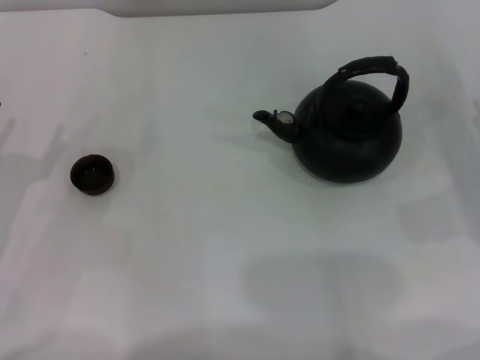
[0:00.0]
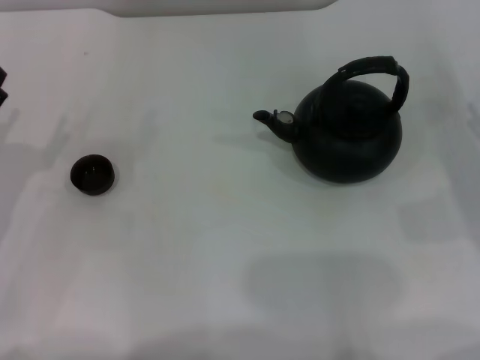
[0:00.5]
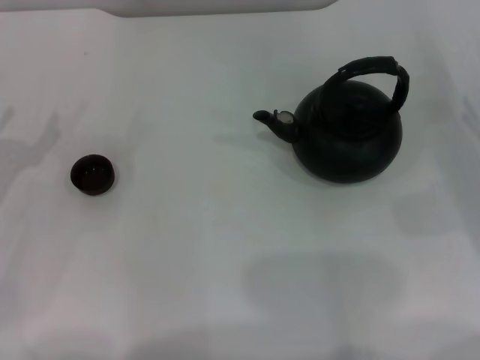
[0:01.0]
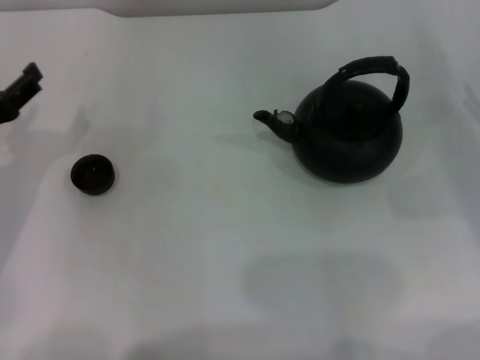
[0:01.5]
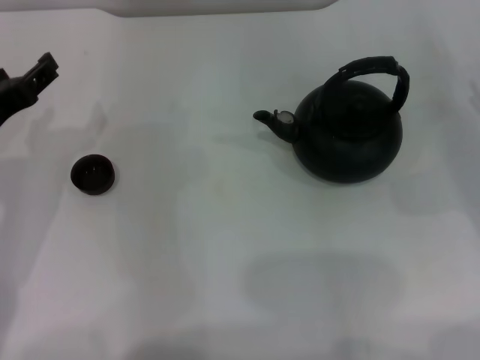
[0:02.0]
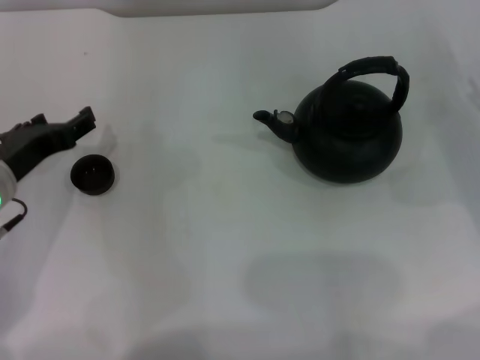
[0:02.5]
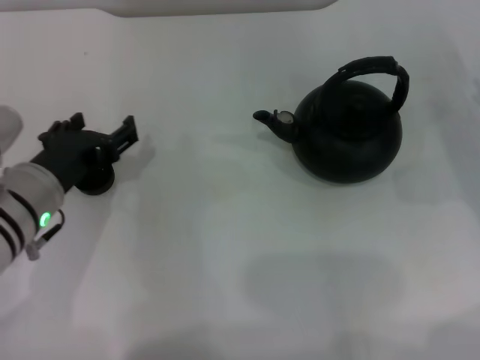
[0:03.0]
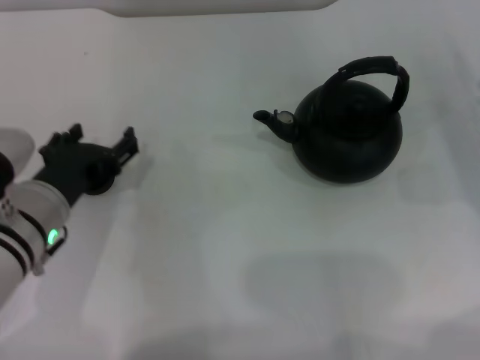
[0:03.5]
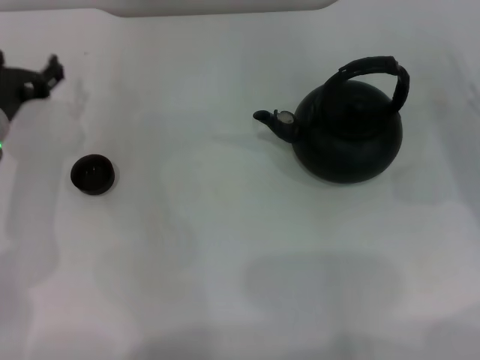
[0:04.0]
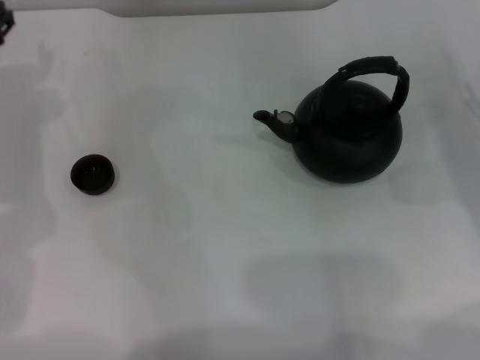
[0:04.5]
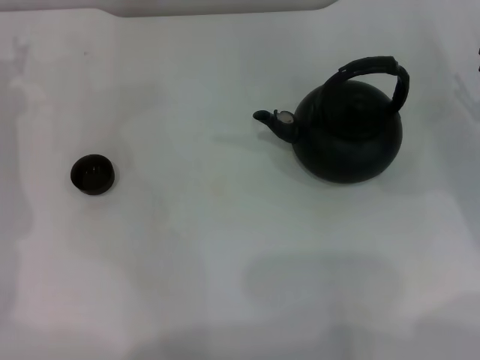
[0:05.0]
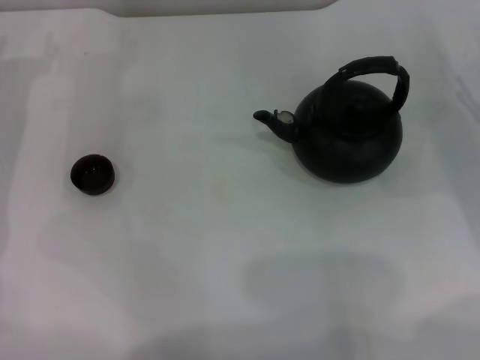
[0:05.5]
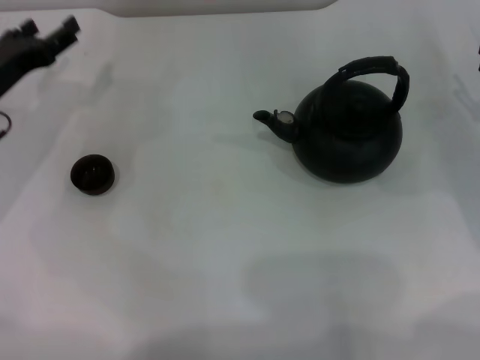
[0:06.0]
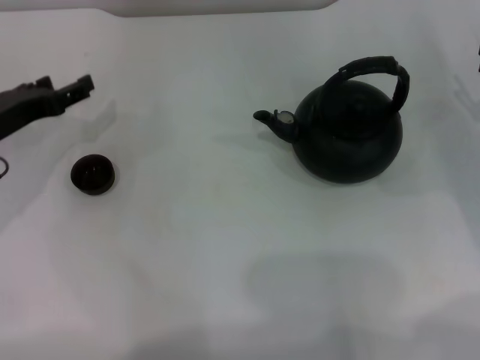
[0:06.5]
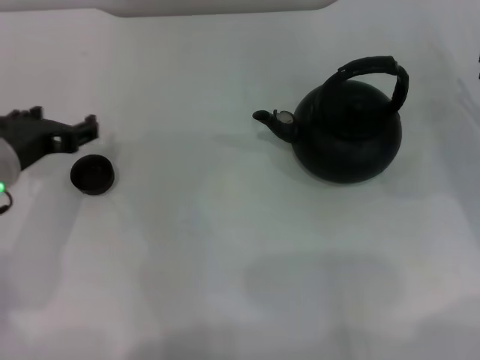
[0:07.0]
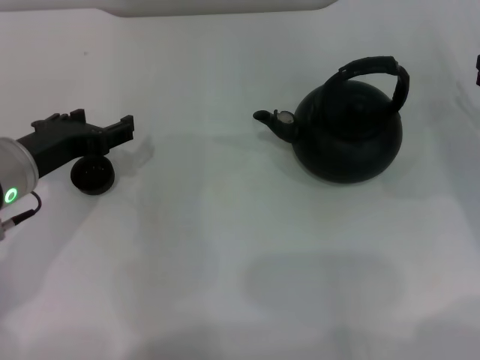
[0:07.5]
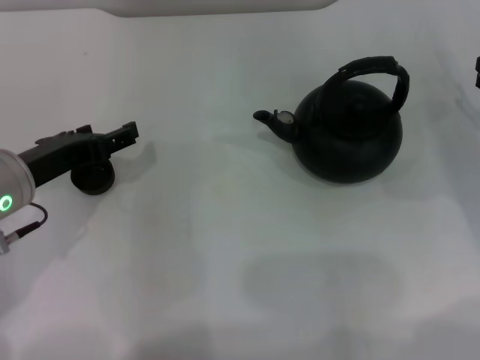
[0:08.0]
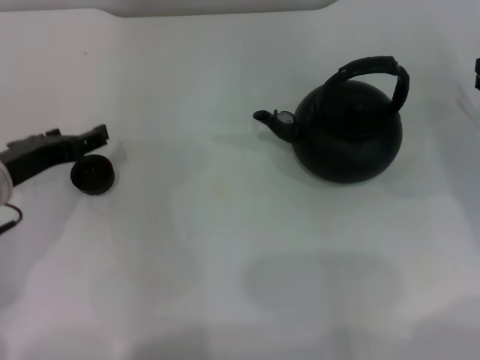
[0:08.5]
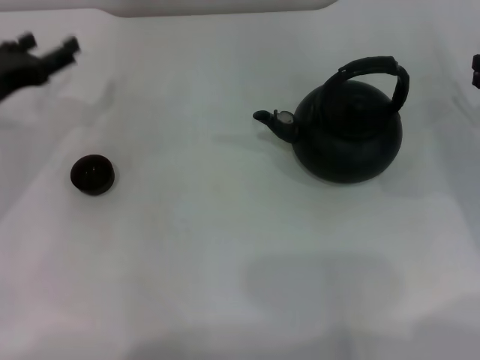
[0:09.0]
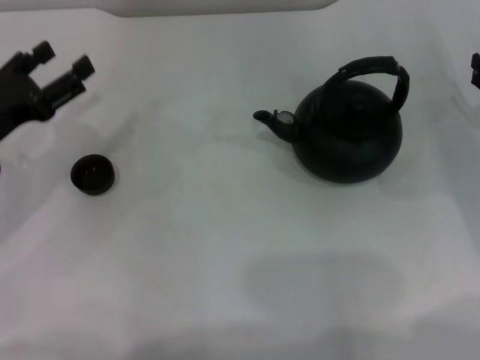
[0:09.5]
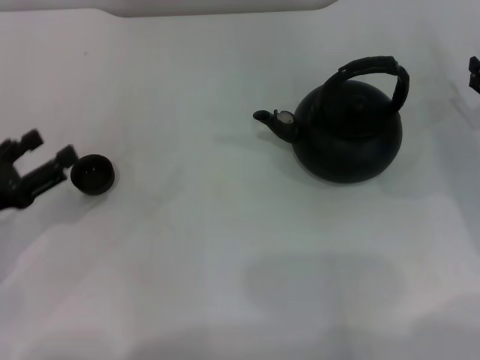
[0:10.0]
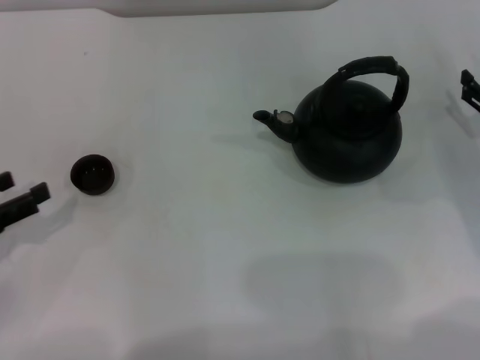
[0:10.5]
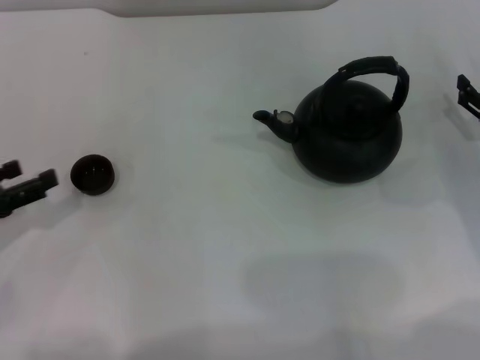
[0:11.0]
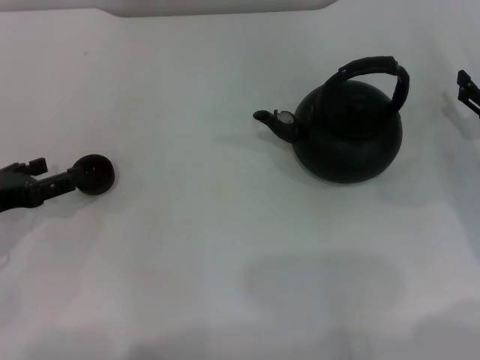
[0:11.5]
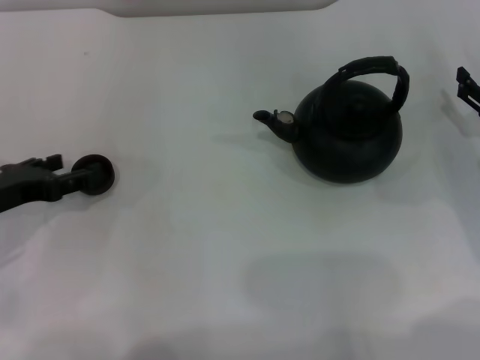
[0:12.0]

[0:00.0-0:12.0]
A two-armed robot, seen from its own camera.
Task of the whole recording: Grasp the handle of the teapot with one hand and pour tea into the teacup.
0:00.0 to 0:02.0: The left gripper travels upward and to the right by approximately 10 cm.
0:02.0 to 0:04.0: The left gripper is displaced forward by approximately 5 cm.
0:06.0 to 0:08.0: The left gripper is displaced backward and to the right by approximately 10 cm.
0:08.0 to 0:10.0: The left gripper heads to the left, covering about 10 cm.

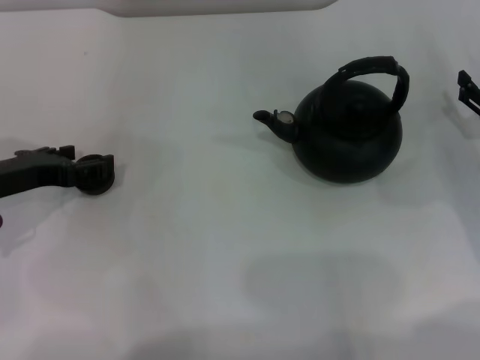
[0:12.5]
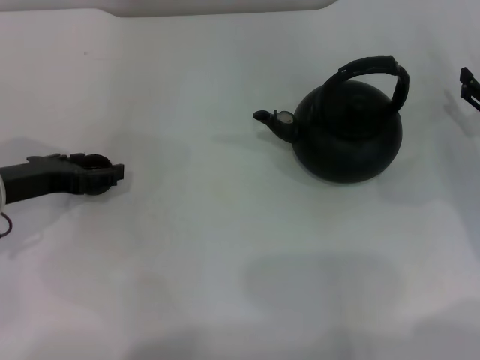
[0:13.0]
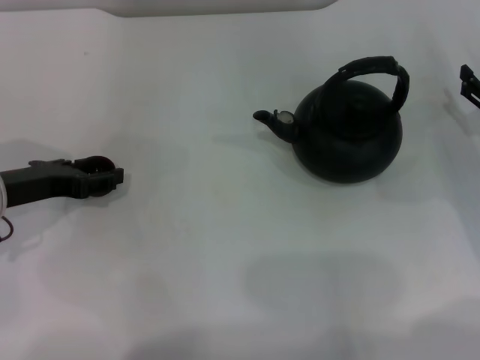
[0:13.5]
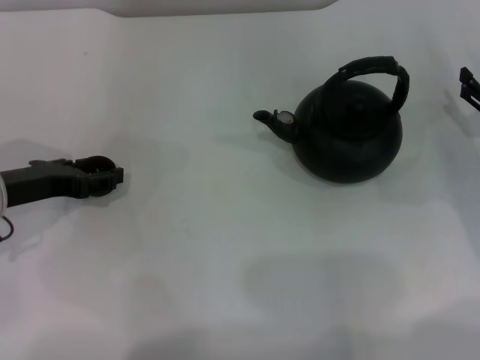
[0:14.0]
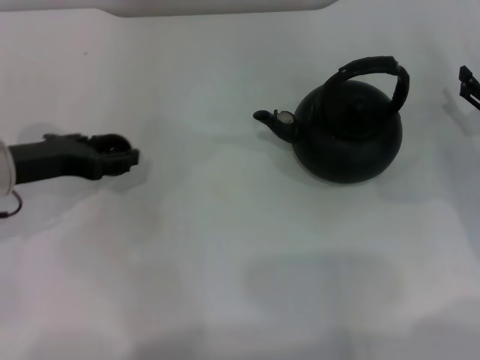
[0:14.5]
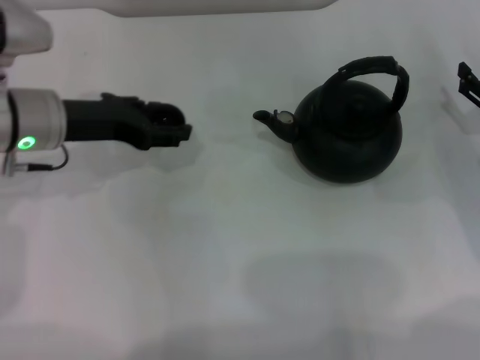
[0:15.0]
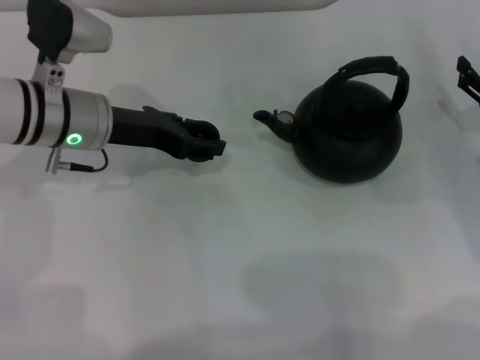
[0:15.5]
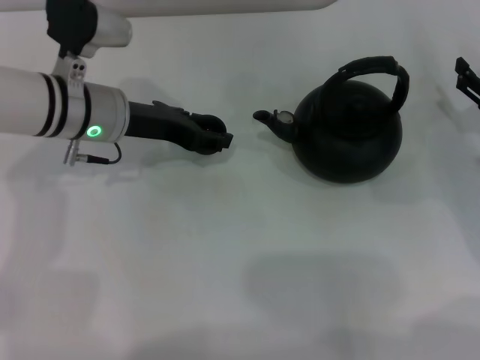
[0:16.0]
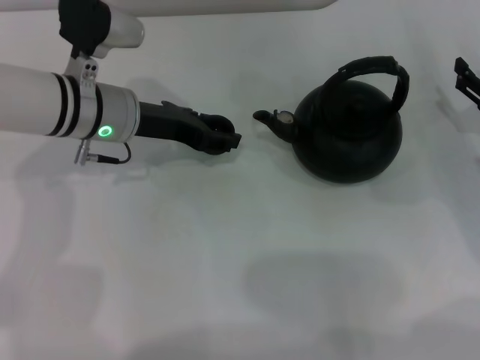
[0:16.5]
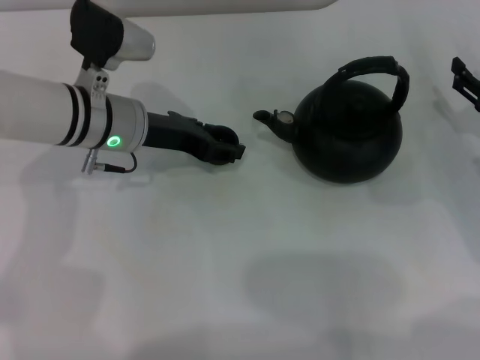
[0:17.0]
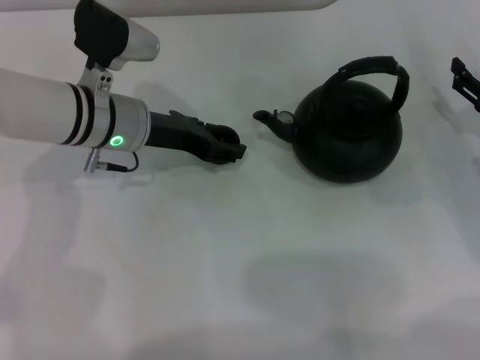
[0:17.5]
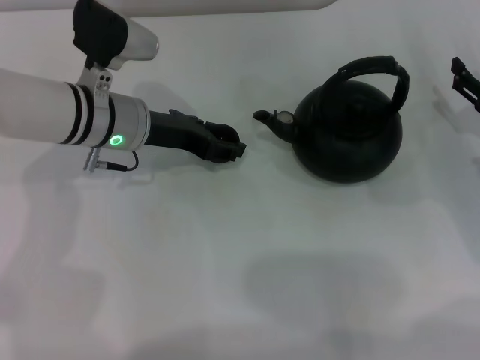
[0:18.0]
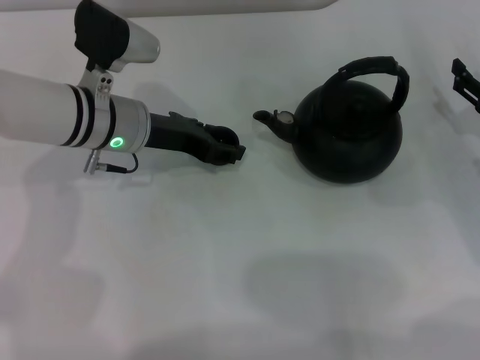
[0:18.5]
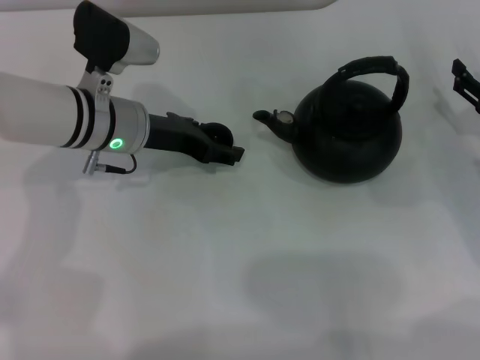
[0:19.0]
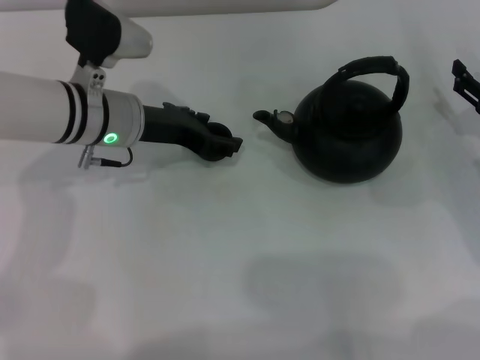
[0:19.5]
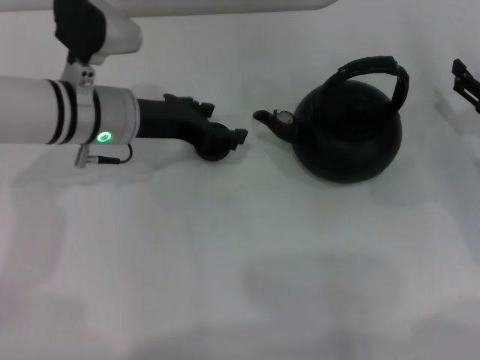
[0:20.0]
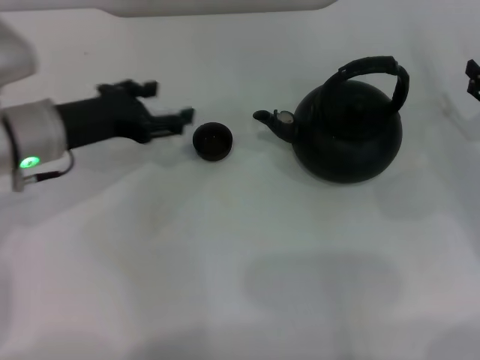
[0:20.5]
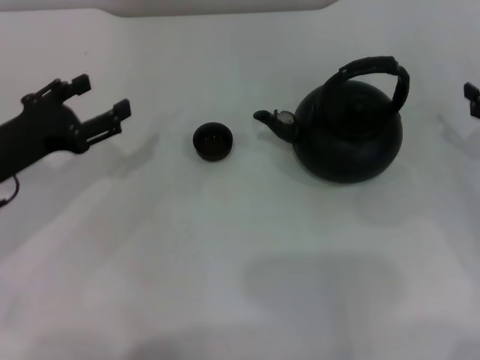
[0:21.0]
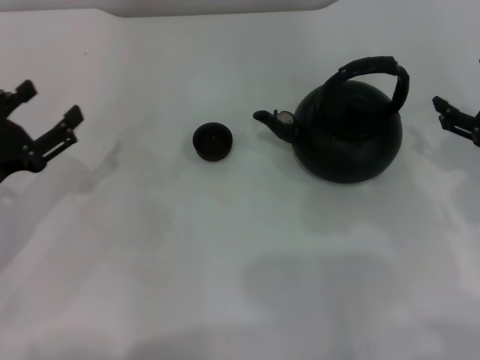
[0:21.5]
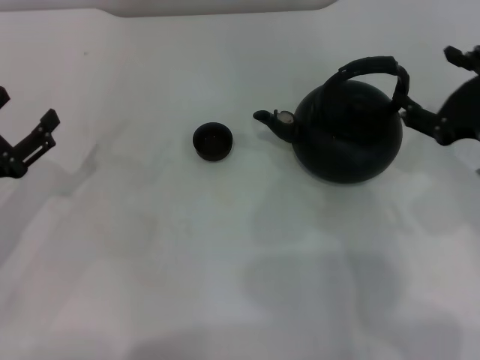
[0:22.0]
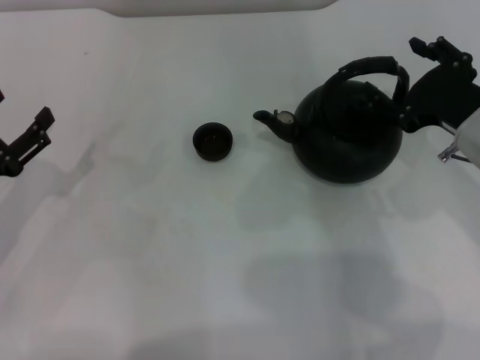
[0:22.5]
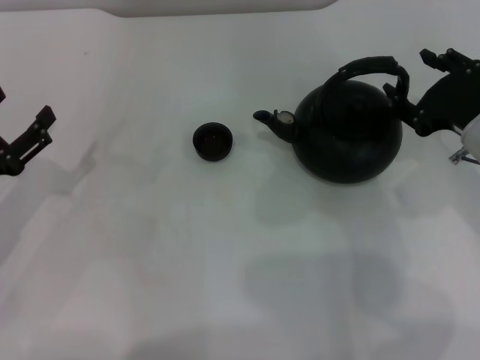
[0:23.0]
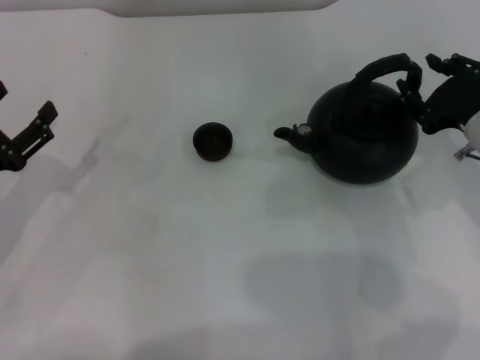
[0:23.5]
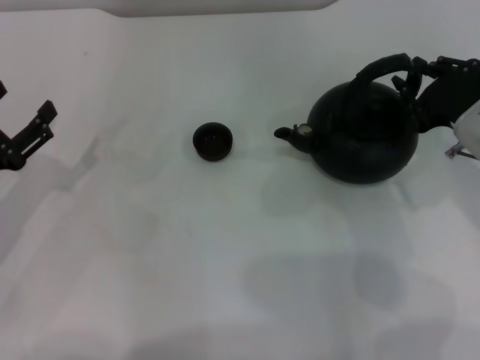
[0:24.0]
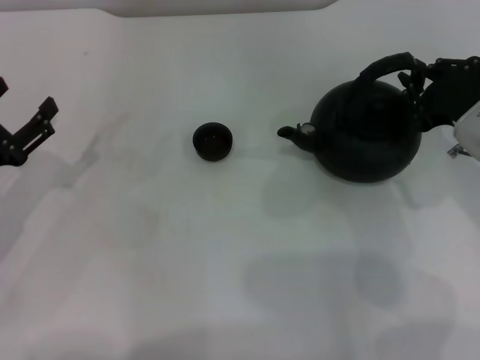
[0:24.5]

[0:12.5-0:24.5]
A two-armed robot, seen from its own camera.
Task of the whole recording: Grasp the handle of the teapot with one hand and pour tea into the teacup.
Step, 0:12.5 to 0:14.5: Pick up the teacup with the left gripper.
Step, 0:15.0 to 0:20.0: Place the teacup in the center of view with the left gripper.
0:12.5 to 0:14.5: The left gripper closes its fingers.
0:14.5 to 0:16.5: The left gripper goes about 15 cm to the right and forward.
0:16.5 to 0:18.5: The grippers make only small movements.
0:18.5 to 0:20.5: The left gripper is displaced to the left by about 5 cm, and opens.
0:20.5 to 0:22.5: The right gripper heads to the left and upward, covering about 15 cm; the left gripper travels to the left, backward and downward by about 15 cm.
0:22.5 to 0:24.5: The right gripper closes.

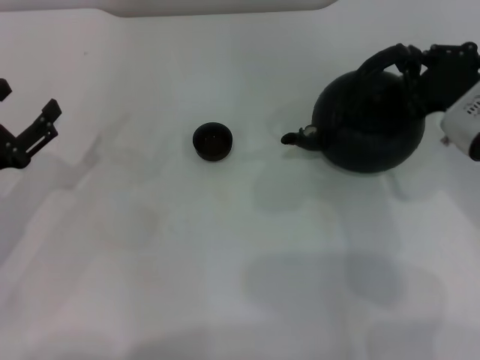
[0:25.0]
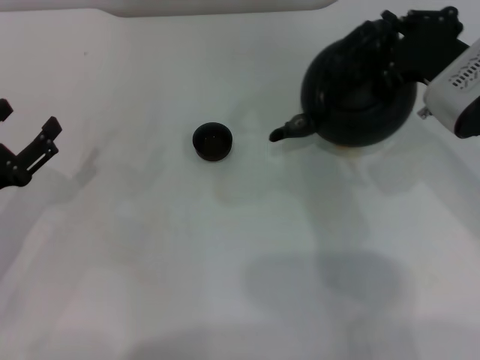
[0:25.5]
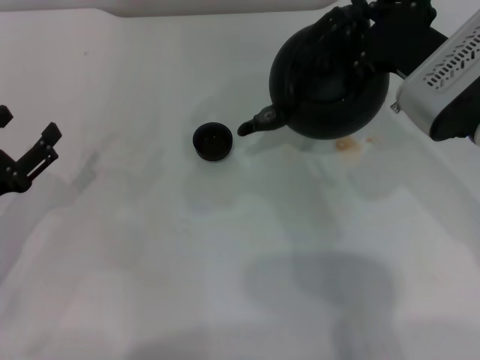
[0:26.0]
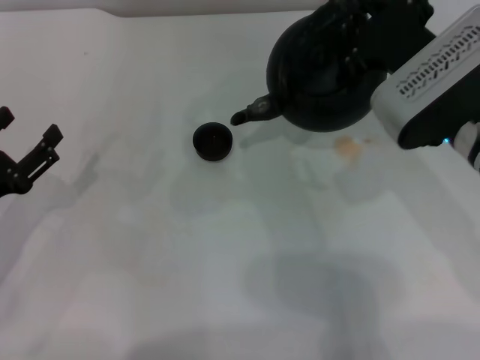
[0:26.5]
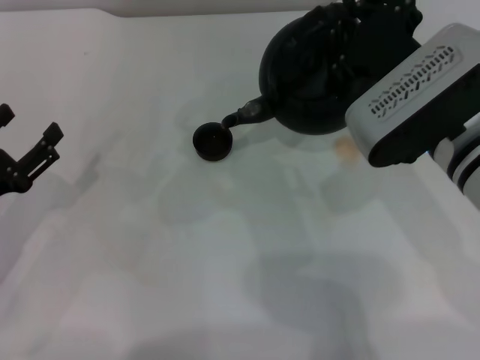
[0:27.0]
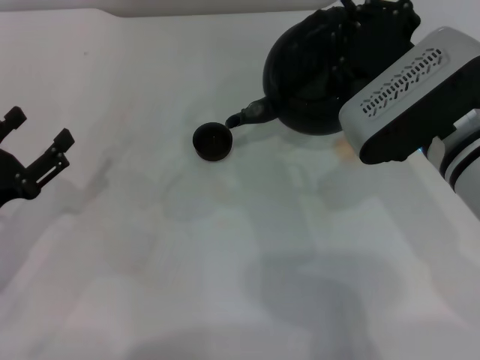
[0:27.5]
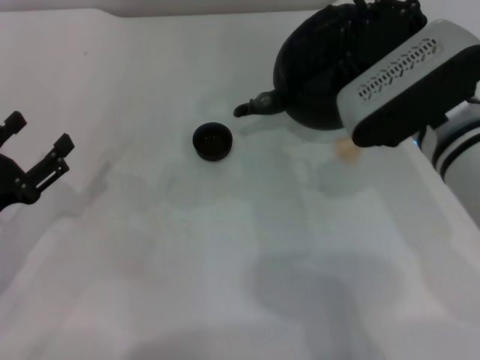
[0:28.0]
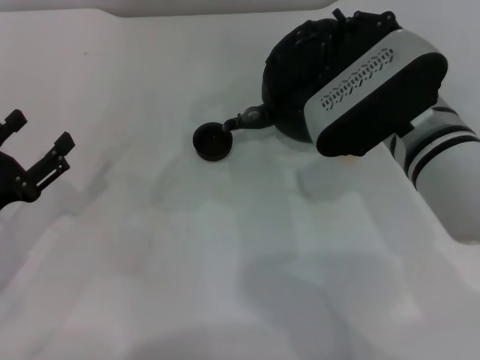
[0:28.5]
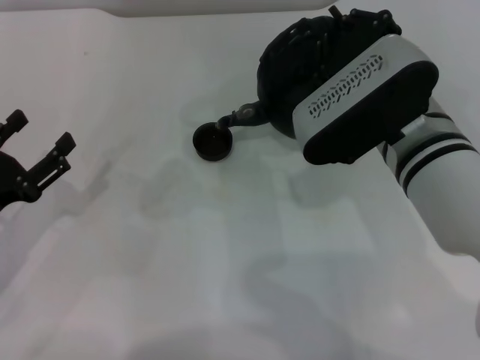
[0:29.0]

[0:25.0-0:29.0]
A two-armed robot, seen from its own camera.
Task of the whole recording: Grasp the handle of the teapot with one hand and pour tea into the teacup.
Step, 0:25.0 to 0:28.0: Pick up the teapot with the right gripper.
0:25.0 to 0:27.0: The right gripper shifts roughly 10 cm to the left.
0:27.0 to 0:29.0: The grippers move only a little.
